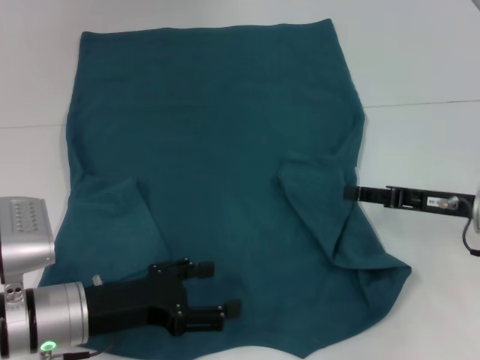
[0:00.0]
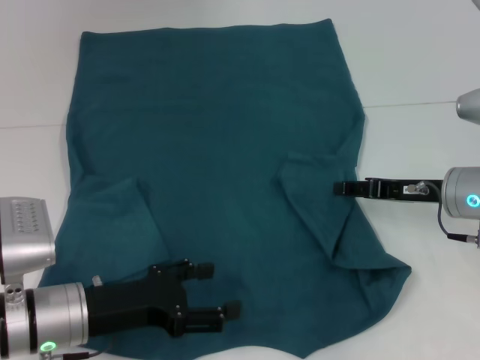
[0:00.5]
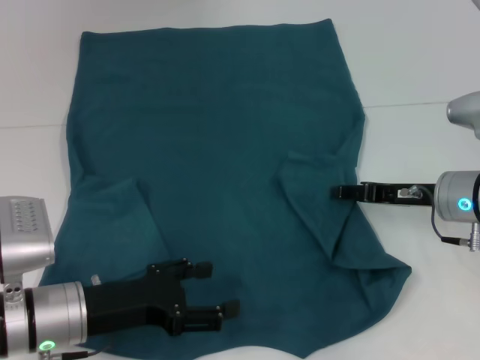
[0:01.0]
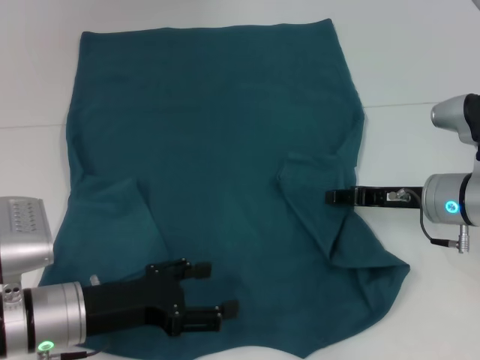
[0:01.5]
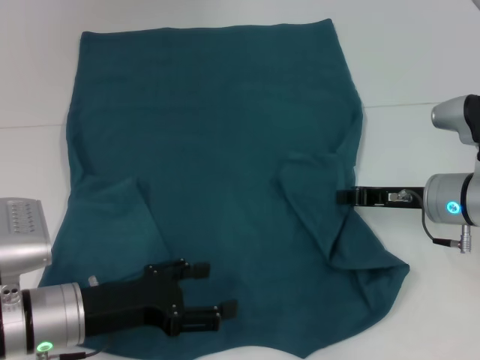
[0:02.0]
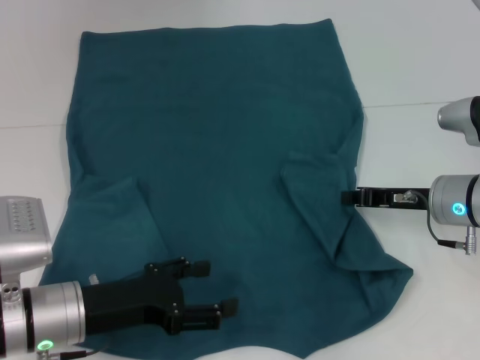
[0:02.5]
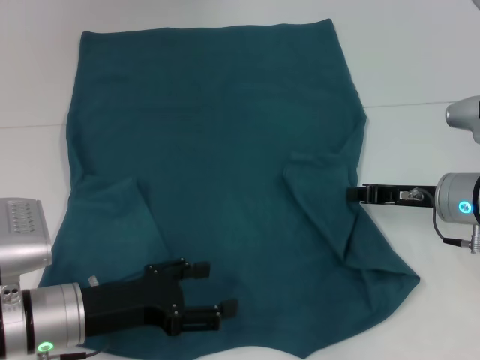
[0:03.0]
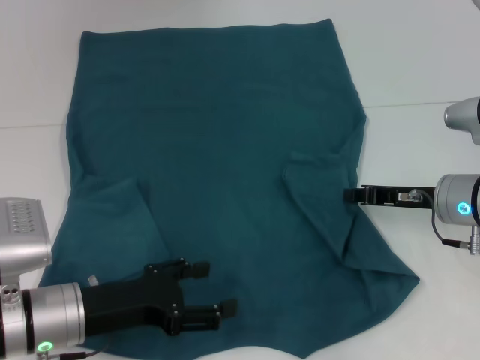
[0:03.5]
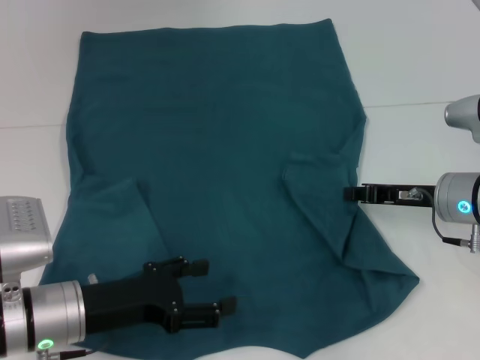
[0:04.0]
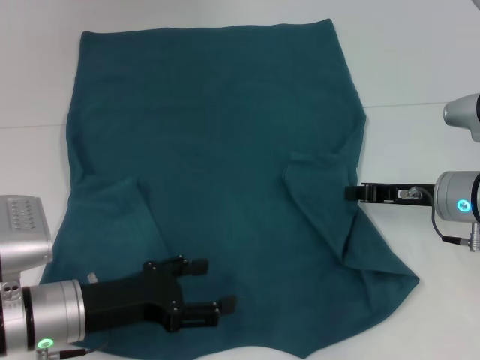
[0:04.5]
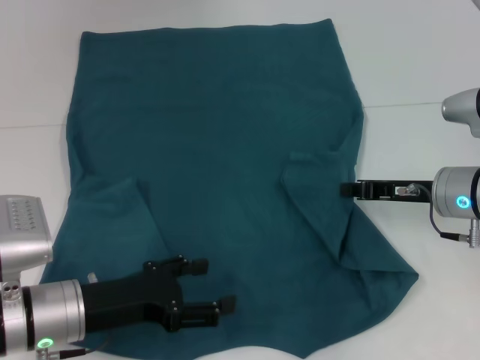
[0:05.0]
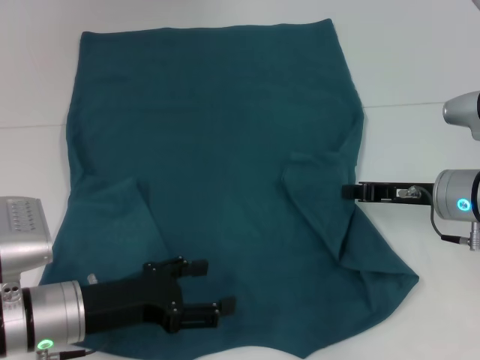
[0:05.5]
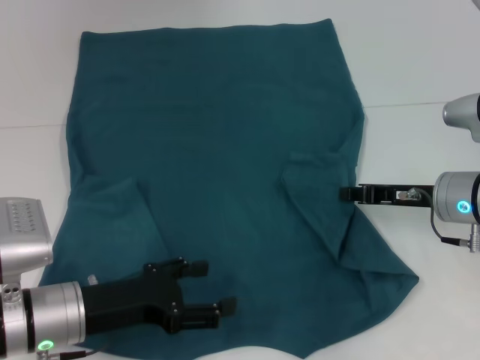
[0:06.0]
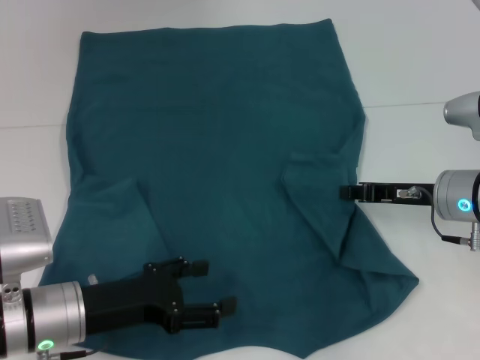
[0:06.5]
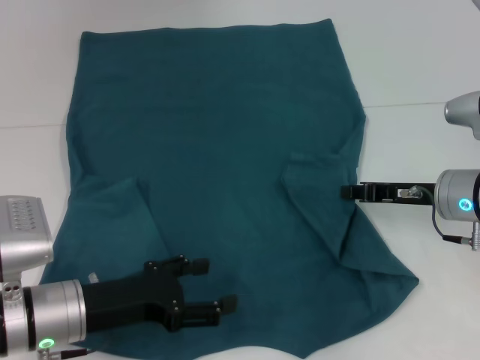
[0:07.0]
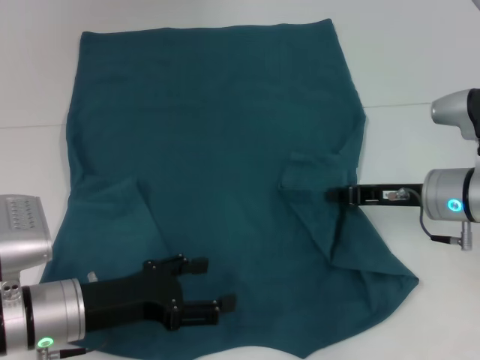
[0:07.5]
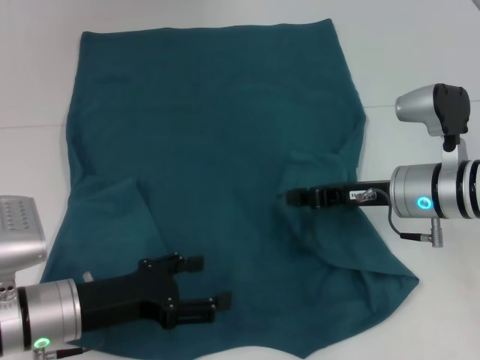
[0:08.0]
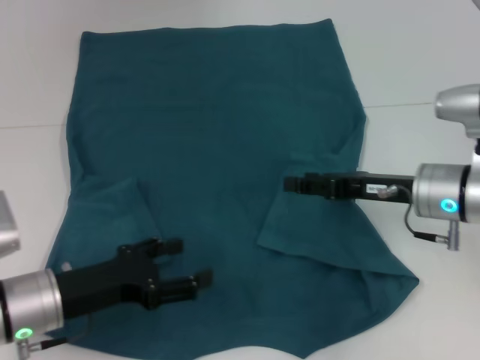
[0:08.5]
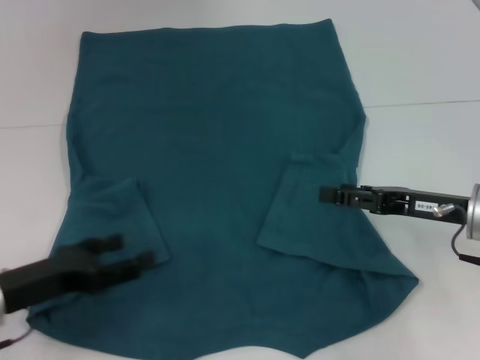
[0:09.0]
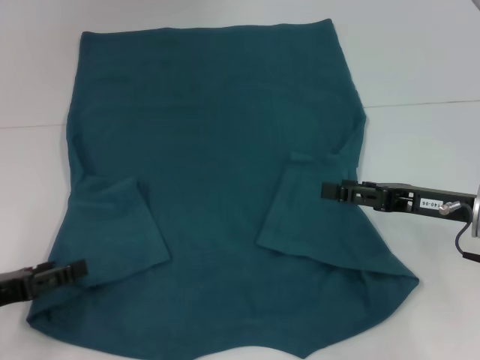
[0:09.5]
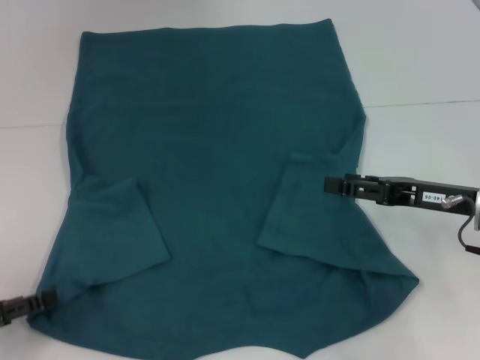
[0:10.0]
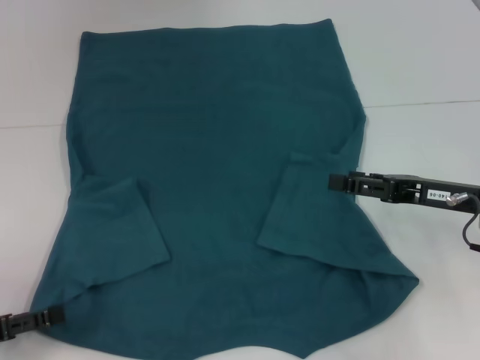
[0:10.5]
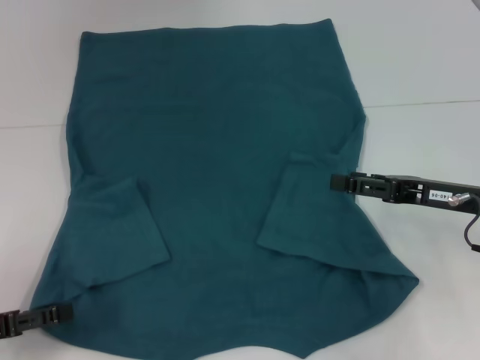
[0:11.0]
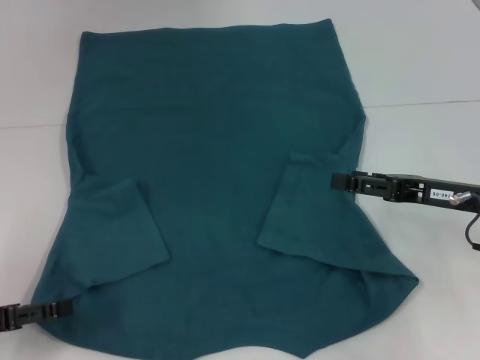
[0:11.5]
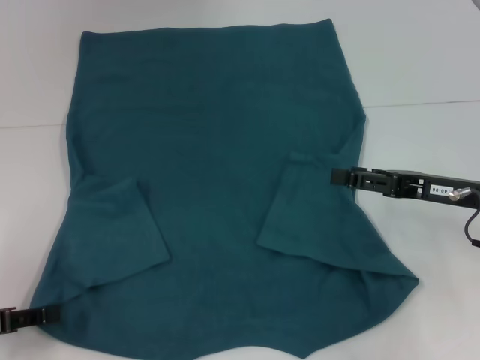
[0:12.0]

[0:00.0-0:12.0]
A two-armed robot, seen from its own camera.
Step, 0:00.0 to 0:08.0: Fold the bottom right sleeve to the right.
0:00.0 to 0:02.0: The right gripper shifts by approximately 5 cm, and closes its fingers.
0:02.0 to 0:06.0: The two grippers keep their place.
0:06.0 to 0:08.0: The right gripper shifts by roughly 5 cm.
0:08.0 to 0:10.0: The left gripper heads to the left, covering some 15 cm; the right gripper moves to the right, approximately 5 cm, and opens its fingers.
0:10.0 to 0:12.0: The grippers stay close to where they were, moving slightly.

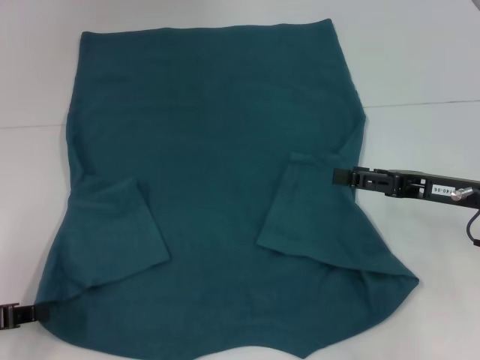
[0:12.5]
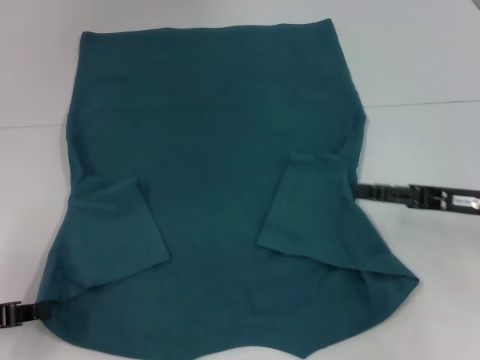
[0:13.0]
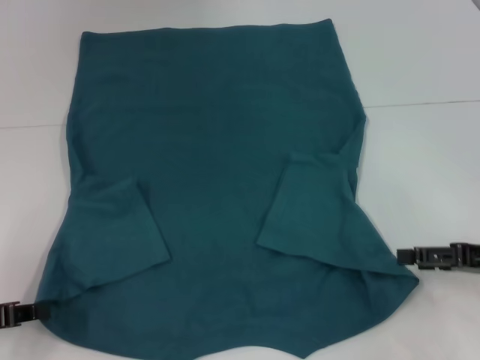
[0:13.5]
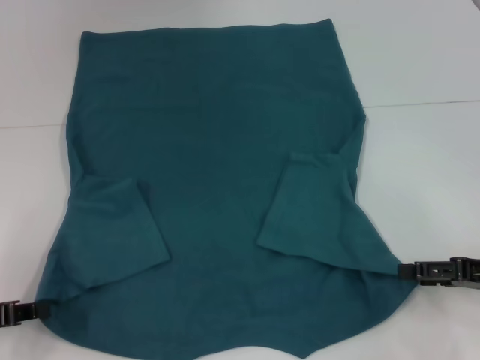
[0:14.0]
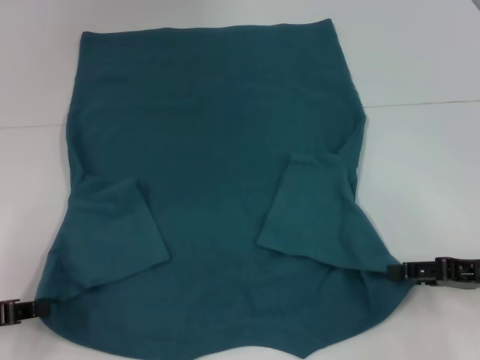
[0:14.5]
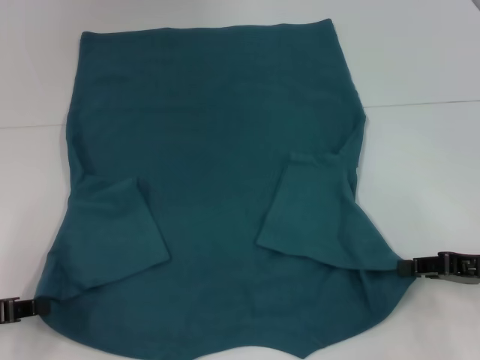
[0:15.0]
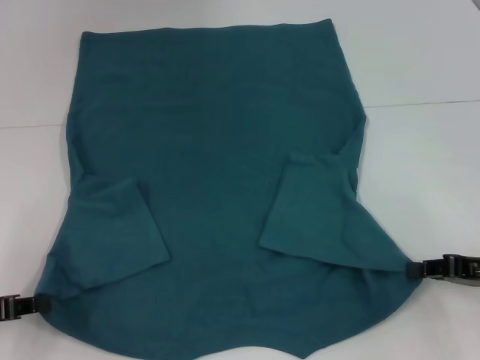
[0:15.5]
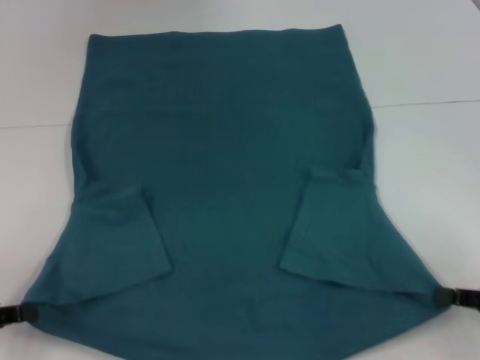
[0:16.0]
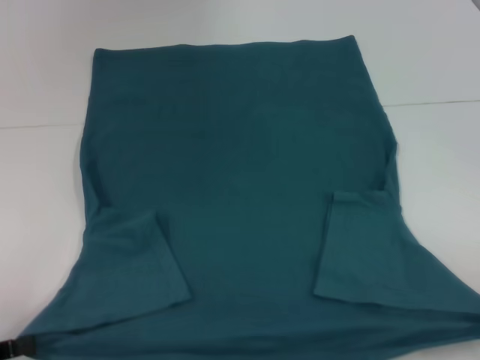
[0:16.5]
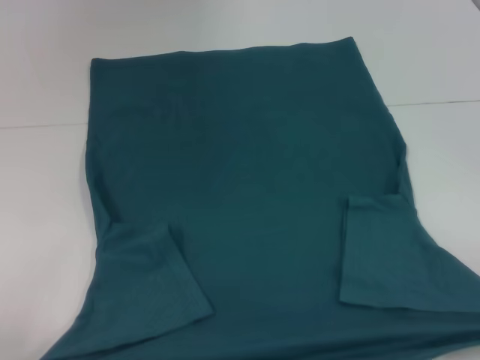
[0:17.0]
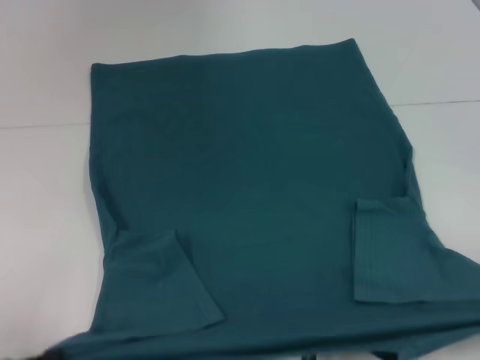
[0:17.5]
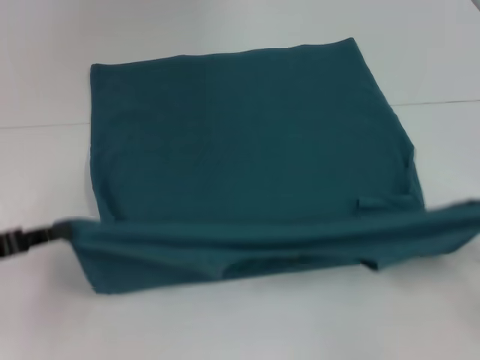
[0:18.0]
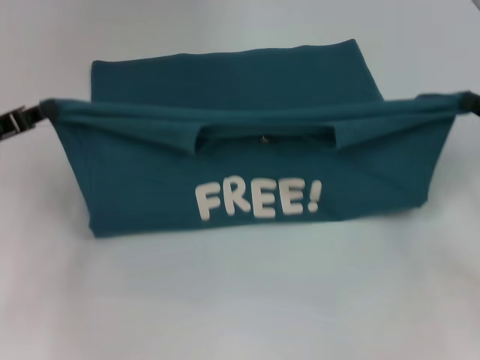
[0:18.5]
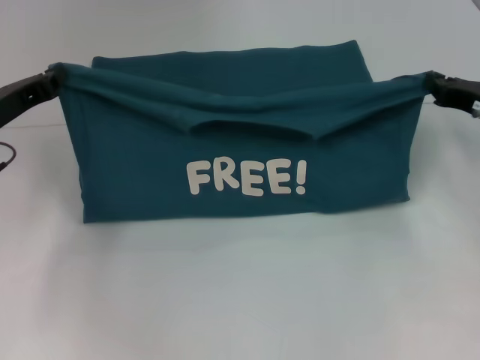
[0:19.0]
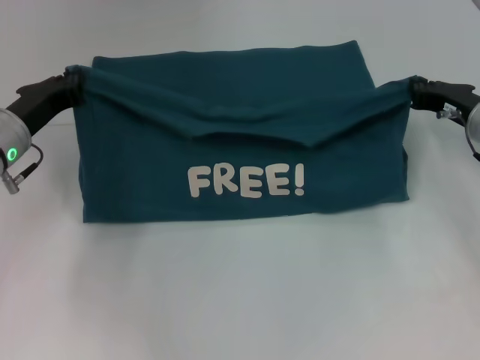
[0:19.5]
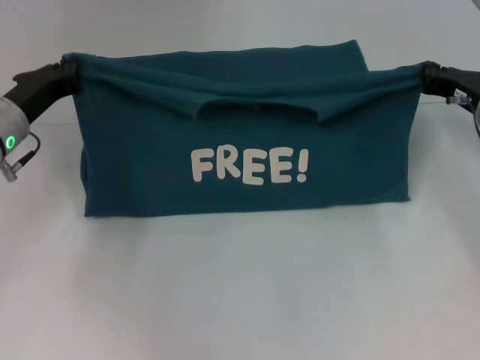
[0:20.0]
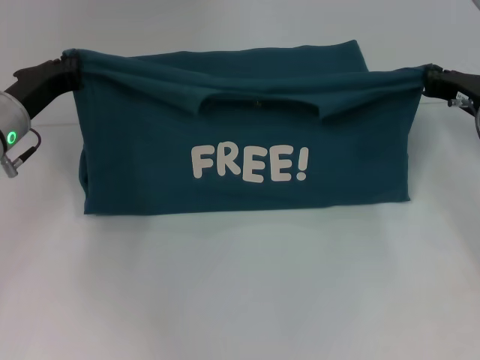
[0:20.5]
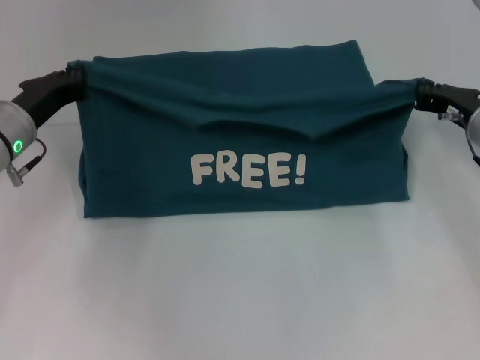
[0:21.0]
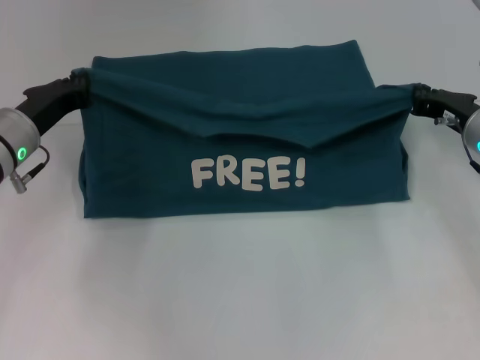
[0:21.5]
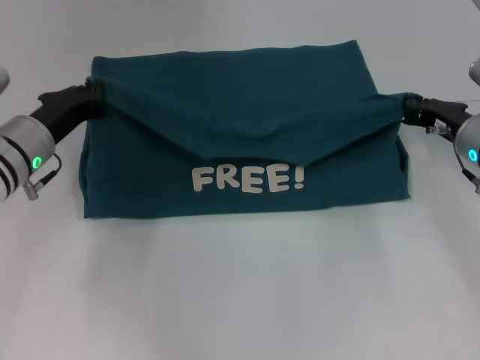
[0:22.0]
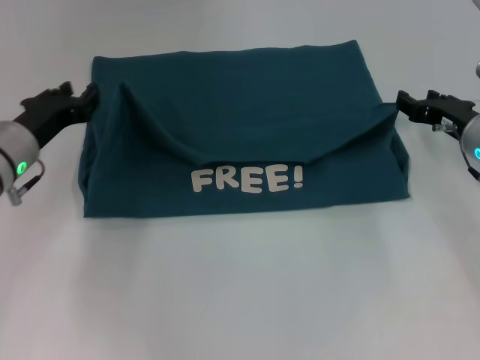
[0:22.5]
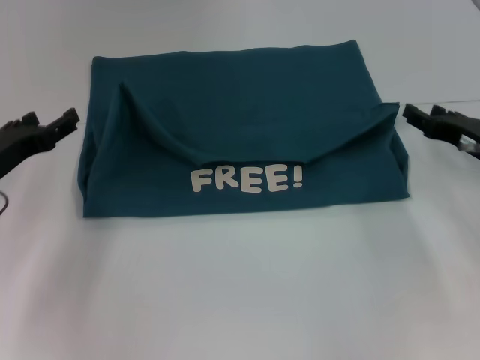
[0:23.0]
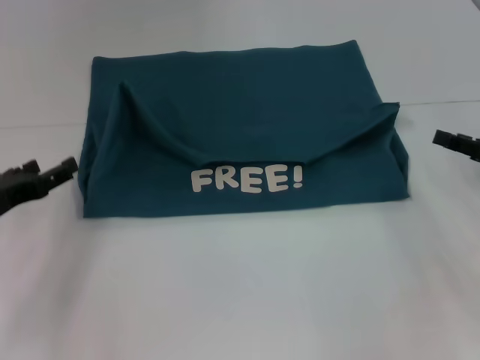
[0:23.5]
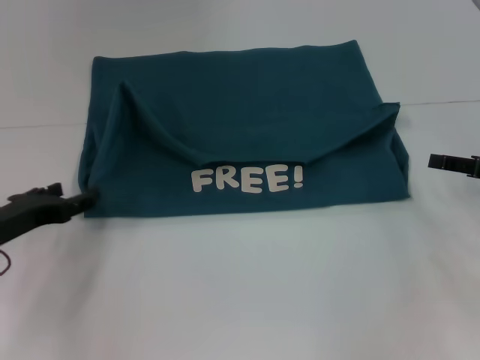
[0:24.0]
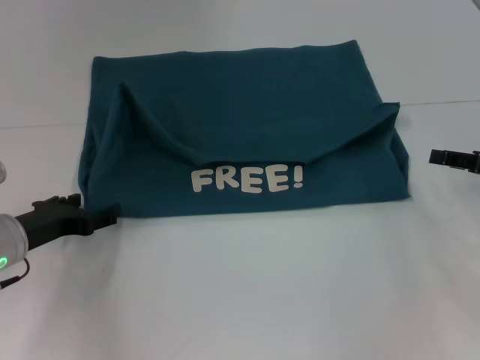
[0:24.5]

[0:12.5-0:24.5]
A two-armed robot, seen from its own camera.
Step, 0:13.0 to 0:15.5: Grab the bottom right corner with your right hand.
Step, 0:16.0 to 0:22.5: Fold the clothes to the left.
Step, 0:16.0 to 0:22.5: Fold the clothes to the right.
0:12.5 to 0:14.5: The right gripper moves roughly 10 cm.
0:14.5 to 0:16.5: The right gripper is displaced backward and to the right by approximately 15 cm, and closes; the left gripper moves backward, roughly 5 cm.
0:16.5 to 0:18.5: The left gripper heads forward, covering about 15 cm. Meanwhile the right gripper moves forward and upward, about 20 cm.
0:18.5 to 0:20.5: The right gripper moves forward and to the left, about 10 cm; the left gripper travels to the right and forward by roughly 10 cm.
0:20.5 to 0:22.5: The grippers stay close to where they were, moving slightly.
0:22.5 to 0:24.5: The right gripper moves to the right and backward, some 10 cm. Meanwhile the left gripper heads backward, covering about 5 cm, and opens up.

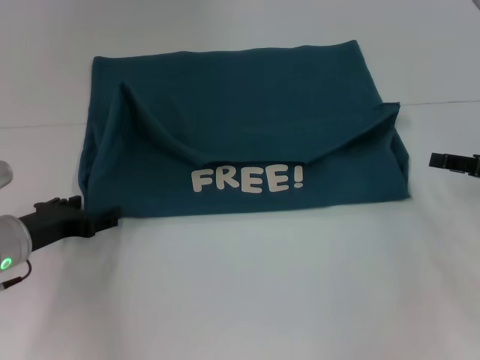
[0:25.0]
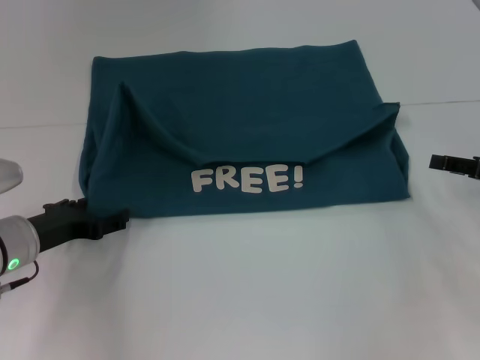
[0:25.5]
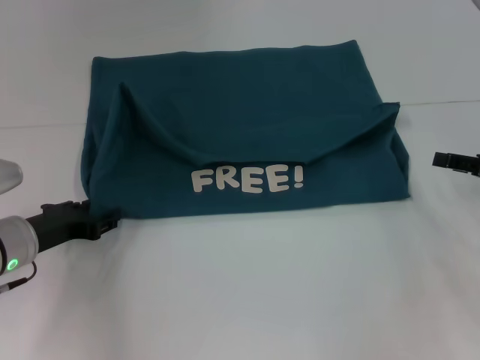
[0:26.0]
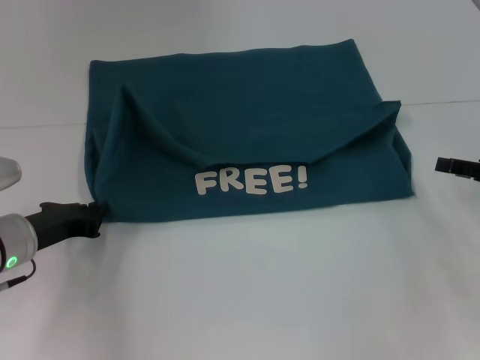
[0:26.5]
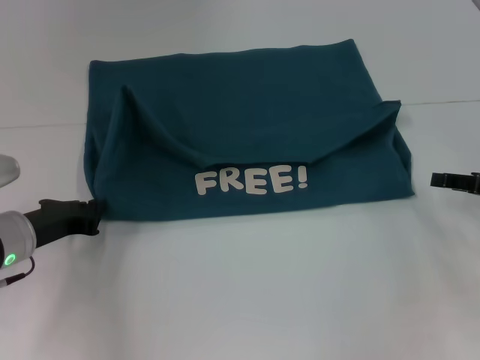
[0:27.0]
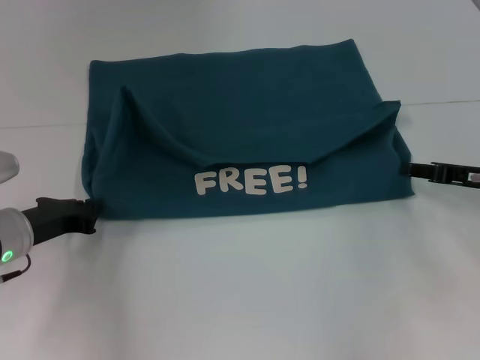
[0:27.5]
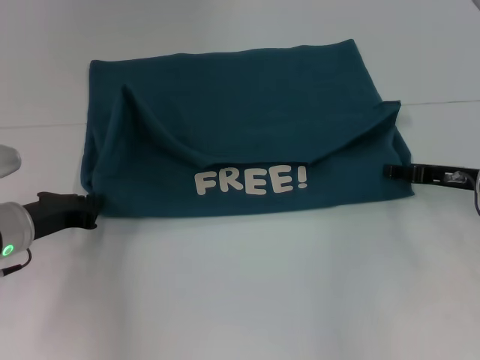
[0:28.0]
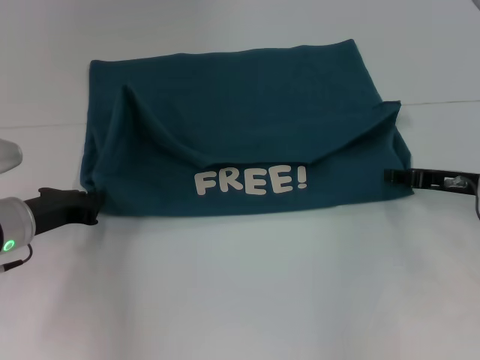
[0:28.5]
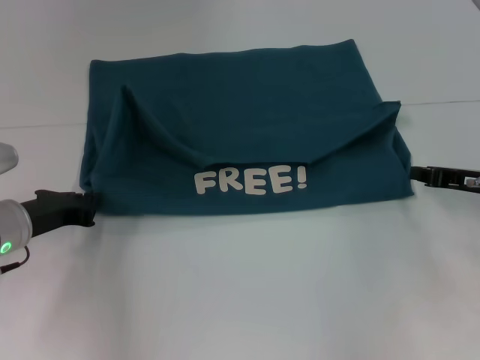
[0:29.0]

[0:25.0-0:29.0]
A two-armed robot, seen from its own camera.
0:25.0 to 0:27.0: The left gripper closes up.
0:27.0 to 0:29.0: The right gripper ends up approximately 5 cm from where it was, and closes its fingers.
